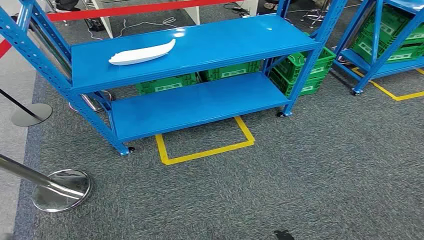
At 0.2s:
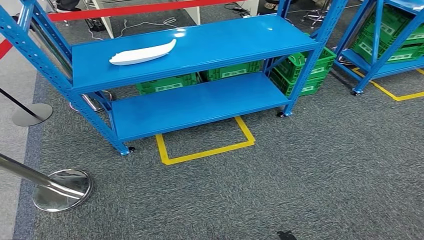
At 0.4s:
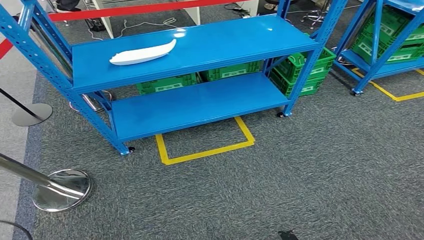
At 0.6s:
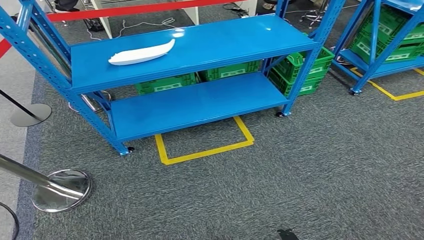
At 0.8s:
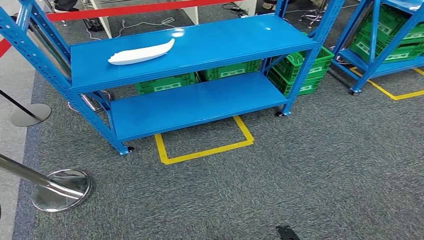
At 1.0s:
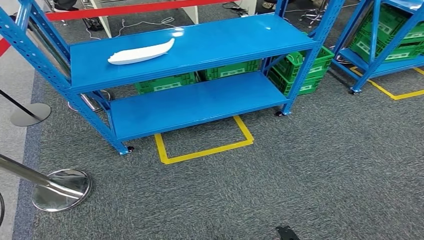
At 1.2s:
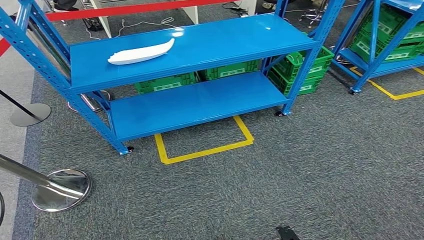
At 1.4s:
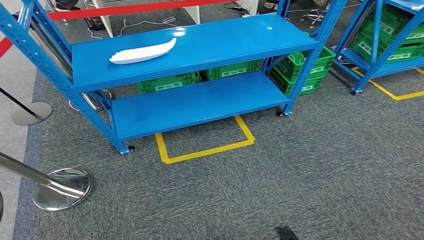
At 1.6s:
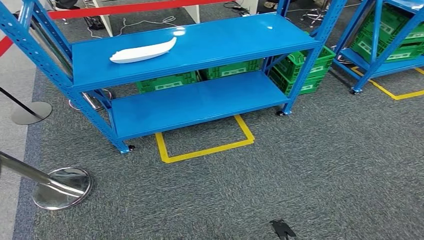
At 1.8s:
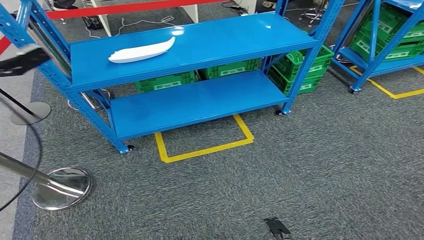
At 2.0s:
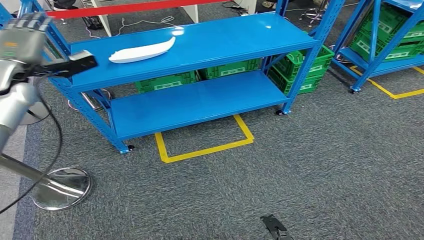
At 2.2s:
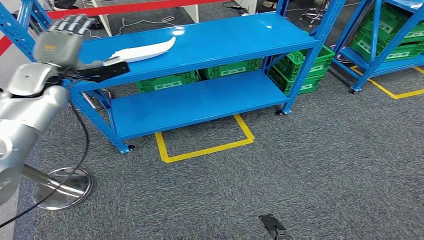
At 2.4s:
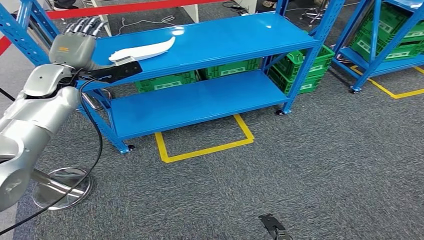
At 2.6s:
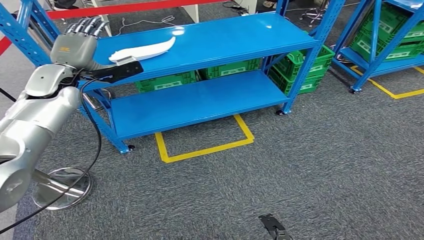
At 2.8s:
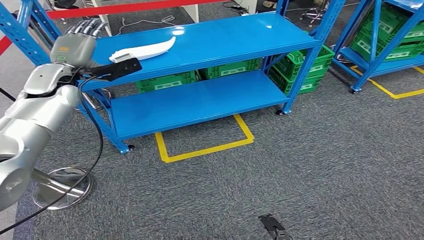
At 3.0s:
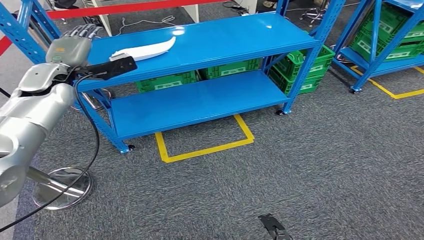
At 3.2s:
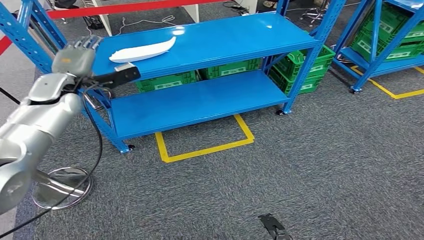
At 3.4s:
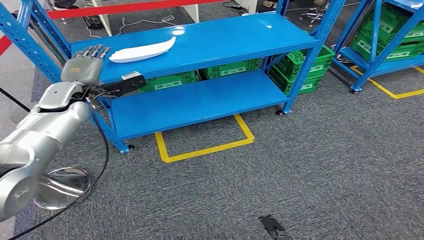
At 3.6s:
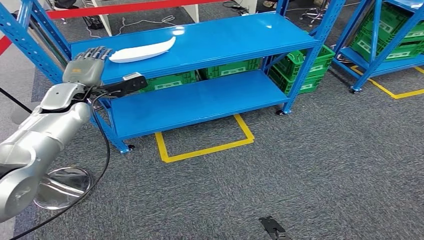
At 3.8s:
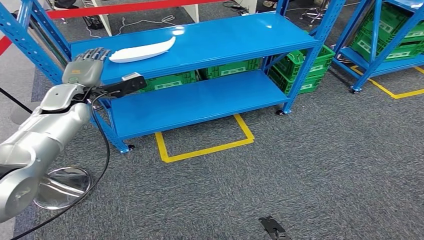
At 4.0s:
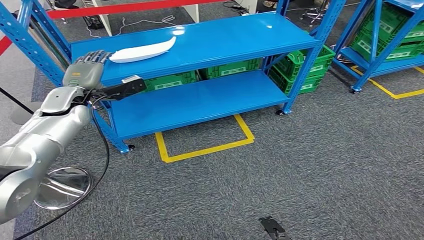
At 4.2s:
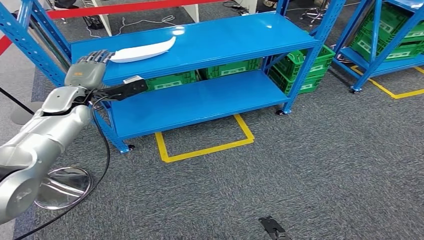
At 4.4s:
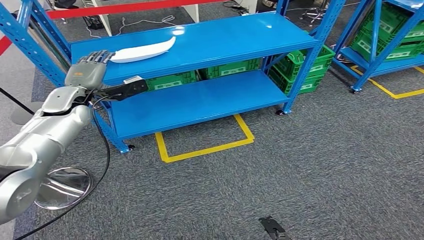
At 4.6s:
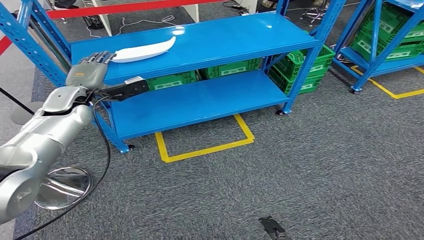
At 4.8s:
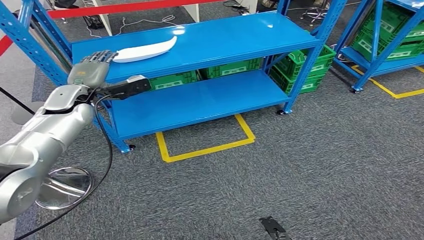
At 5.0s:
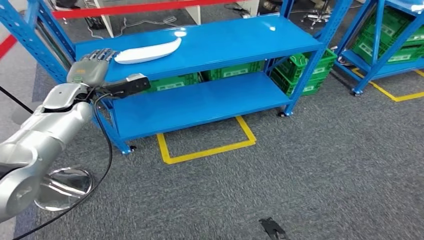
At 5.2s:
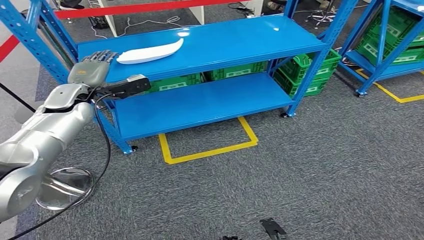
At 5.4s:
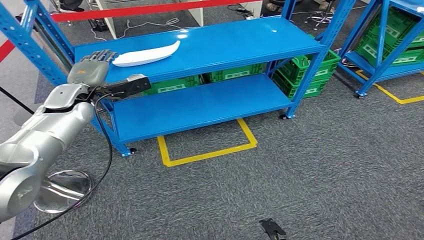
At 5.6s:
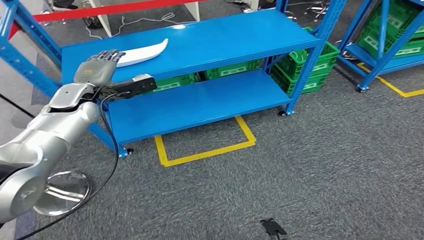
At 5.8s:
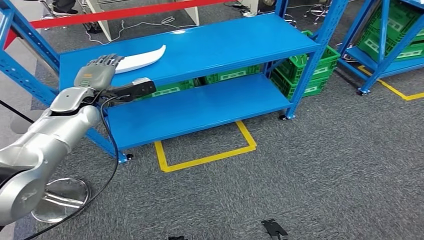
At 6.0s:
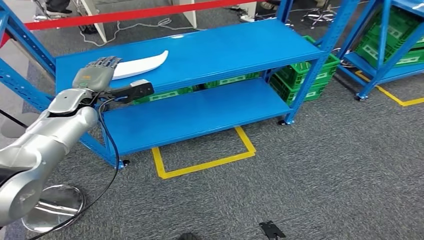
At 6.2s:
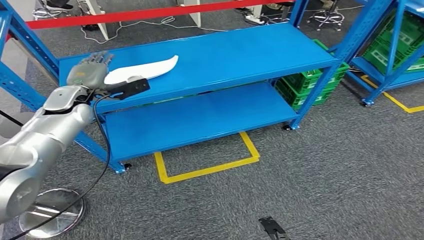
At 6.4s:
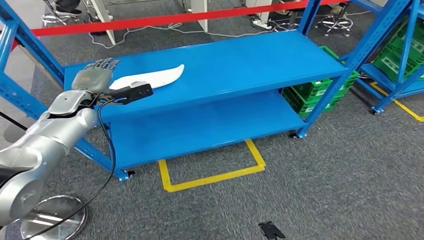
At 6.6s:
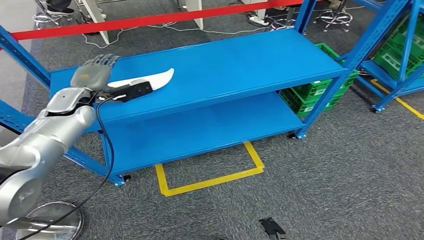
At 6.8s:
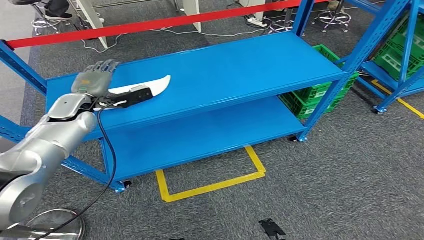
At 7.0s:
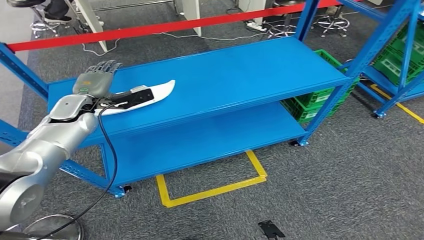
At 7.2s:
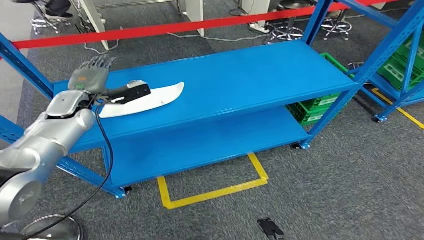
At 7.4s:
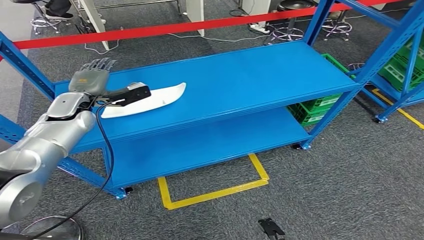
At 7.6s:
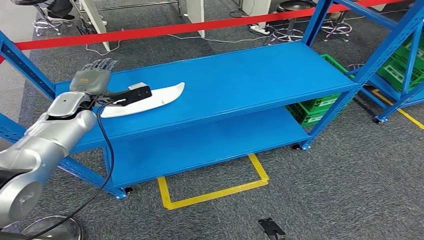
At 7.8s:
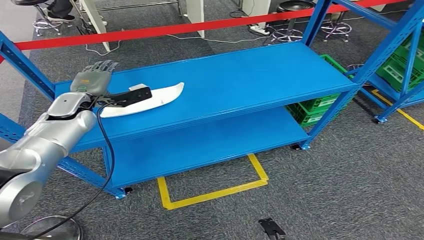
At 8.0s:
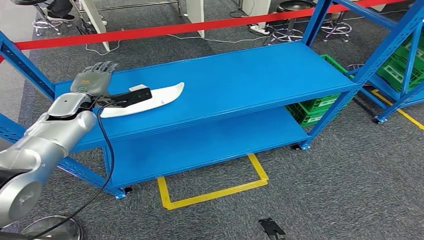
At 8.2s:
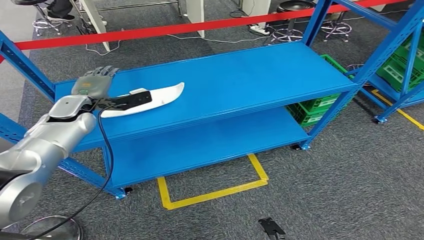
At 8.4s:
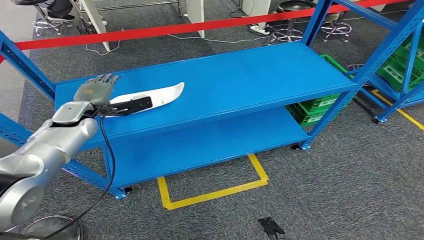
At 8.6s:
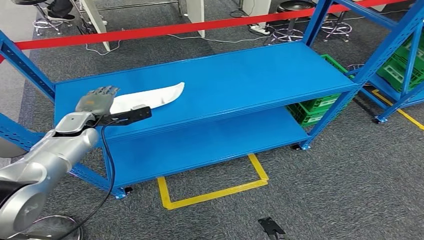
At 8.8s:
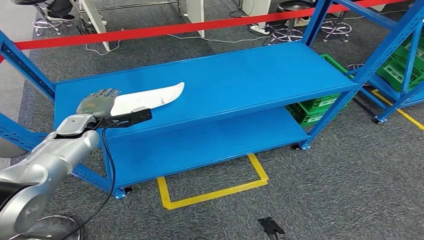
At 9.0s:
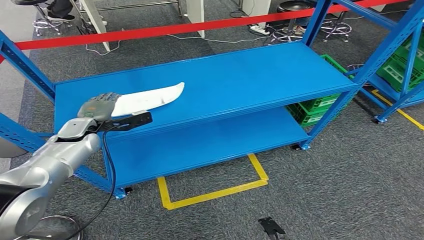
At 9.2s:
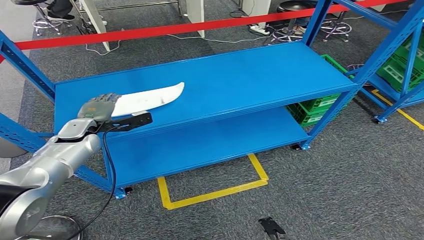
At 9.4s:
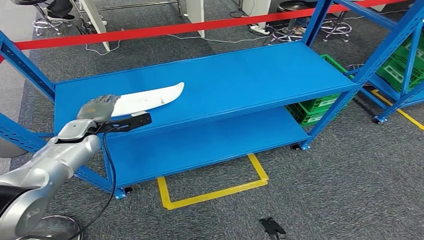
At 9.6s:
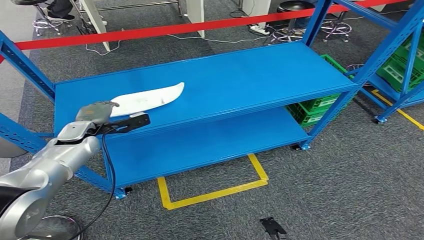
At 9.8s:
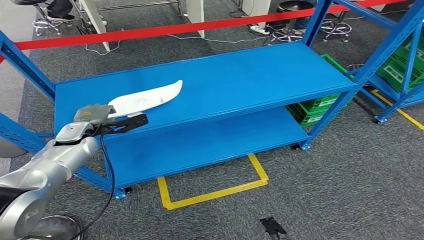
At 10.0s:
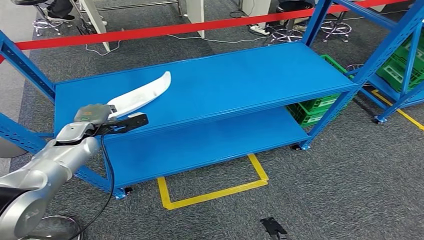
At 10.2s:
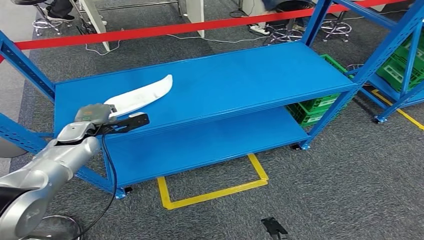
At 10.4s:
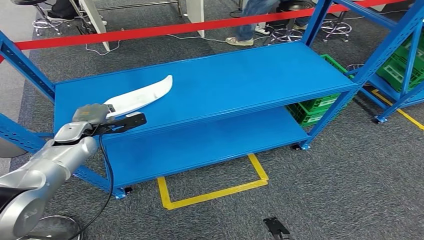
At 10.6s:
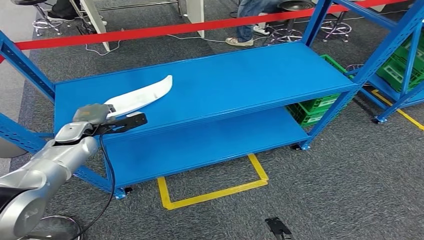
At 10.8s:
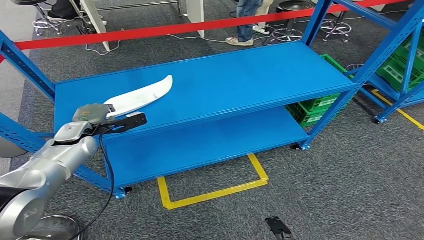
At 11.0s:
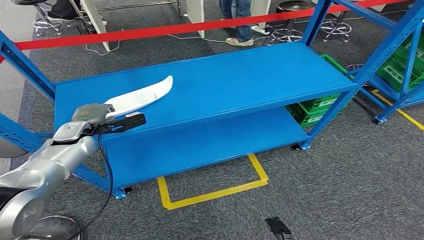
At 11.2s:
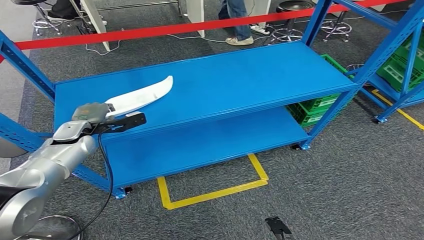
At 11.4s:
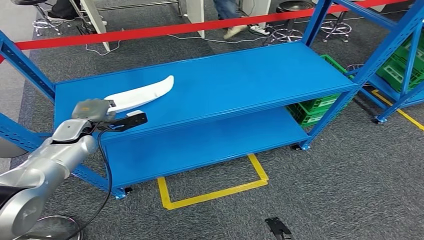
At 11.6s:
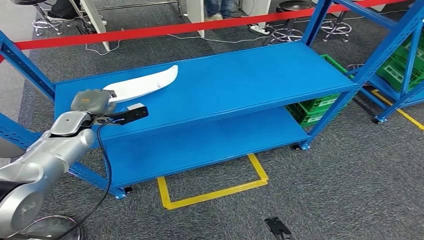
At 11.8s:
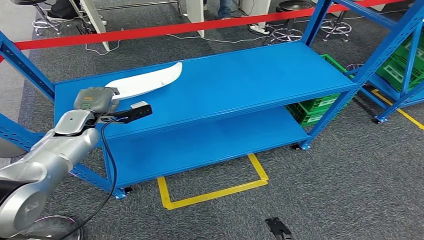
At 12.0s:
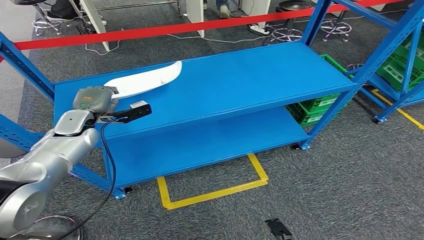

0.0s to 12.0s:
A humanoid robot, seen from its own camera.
1.6s to 3.0s: The left hand heads to the right, covering some 25 cm.
3.0s to 4.4s: The left hand goes roughly 5 cm downward.
7.6s to 9.0s: The left hand moves downward, some 10 cm.
9.0s to 12.0s: The hands make only small movements.

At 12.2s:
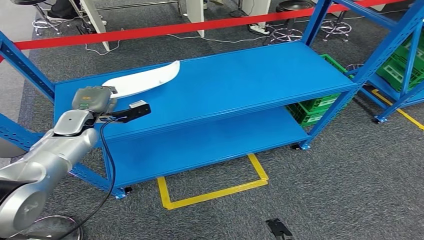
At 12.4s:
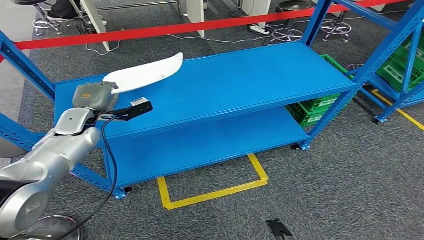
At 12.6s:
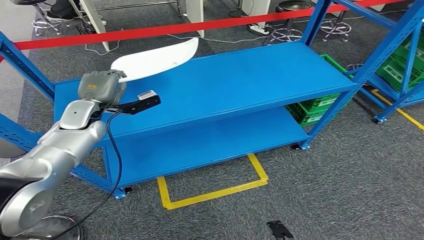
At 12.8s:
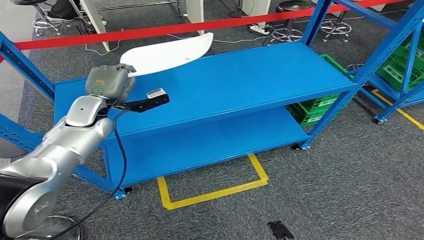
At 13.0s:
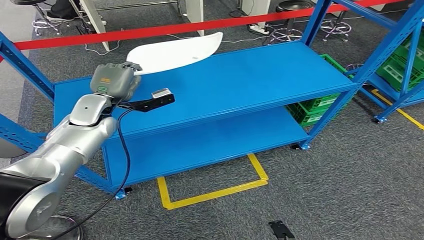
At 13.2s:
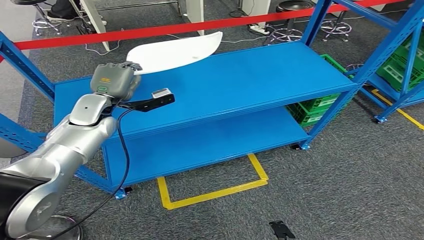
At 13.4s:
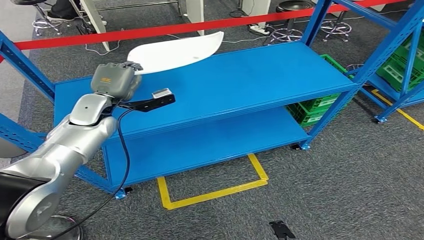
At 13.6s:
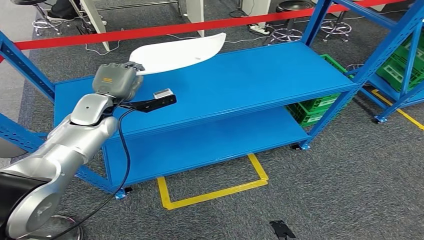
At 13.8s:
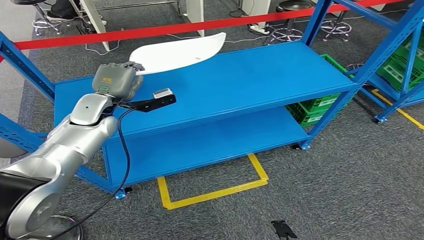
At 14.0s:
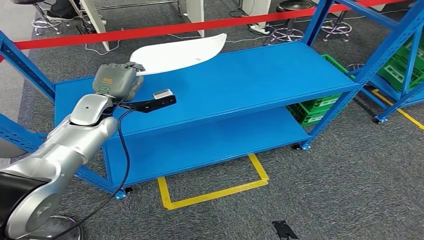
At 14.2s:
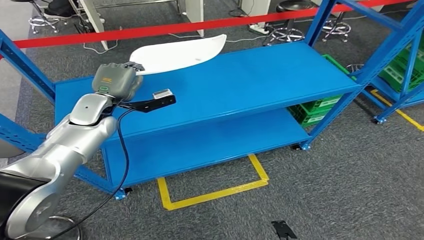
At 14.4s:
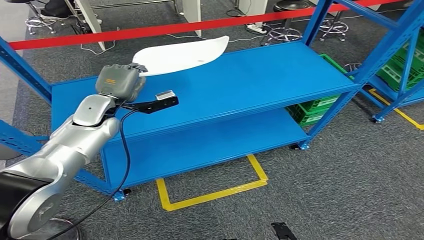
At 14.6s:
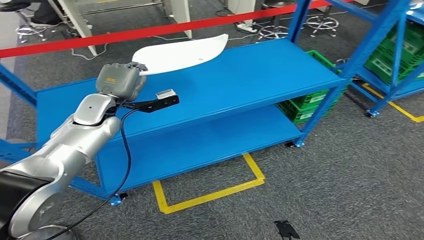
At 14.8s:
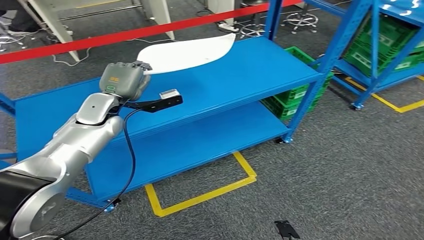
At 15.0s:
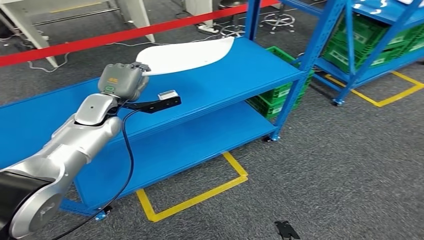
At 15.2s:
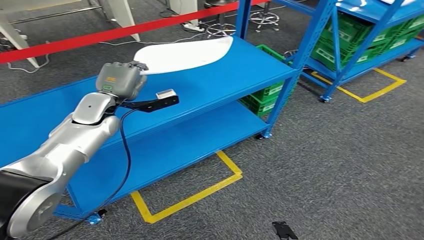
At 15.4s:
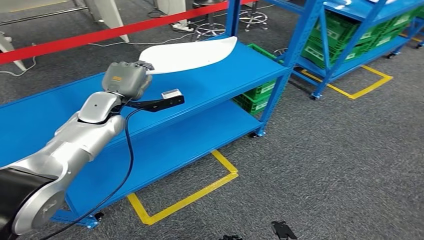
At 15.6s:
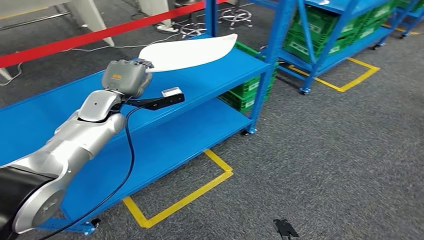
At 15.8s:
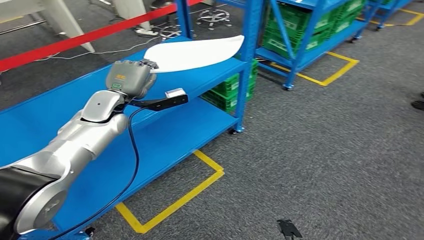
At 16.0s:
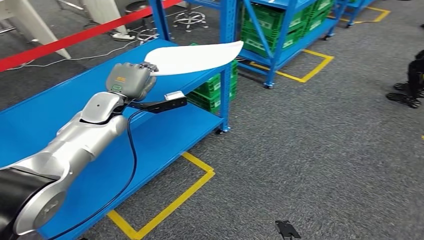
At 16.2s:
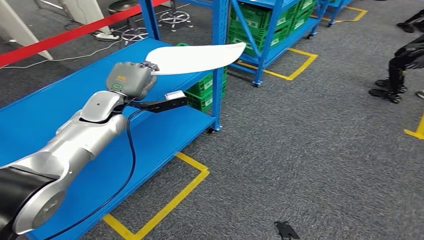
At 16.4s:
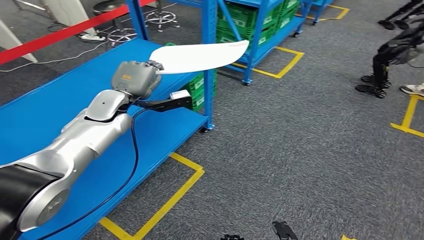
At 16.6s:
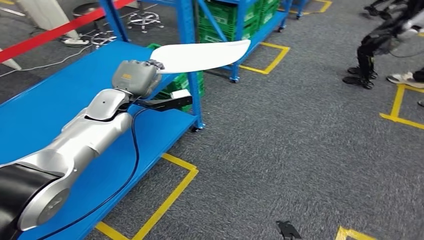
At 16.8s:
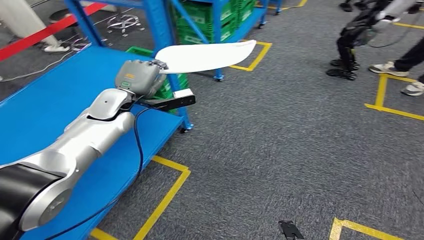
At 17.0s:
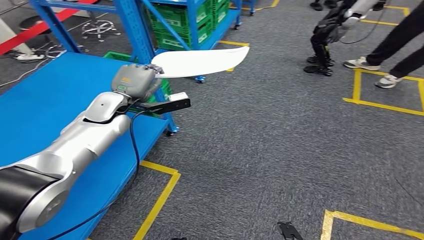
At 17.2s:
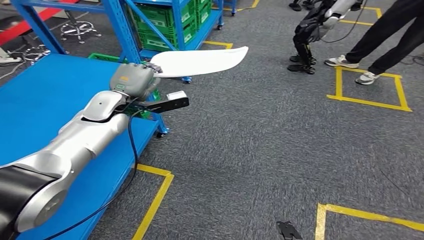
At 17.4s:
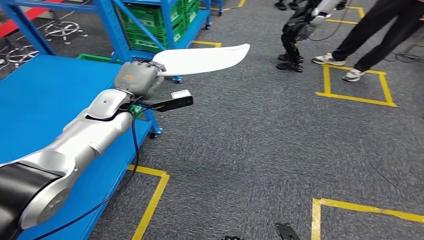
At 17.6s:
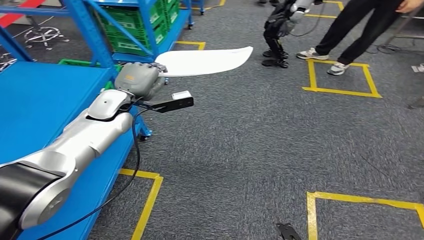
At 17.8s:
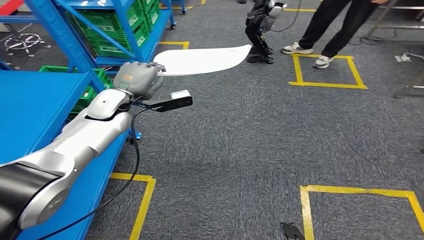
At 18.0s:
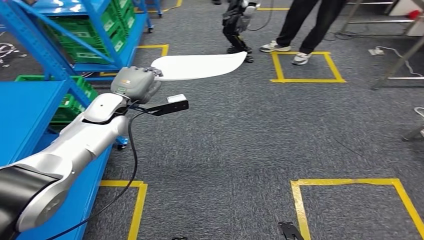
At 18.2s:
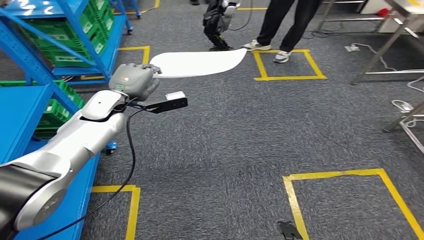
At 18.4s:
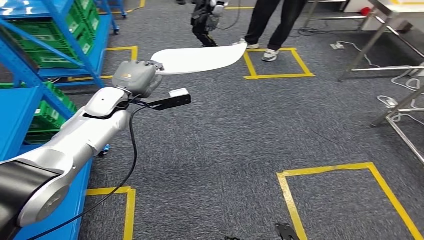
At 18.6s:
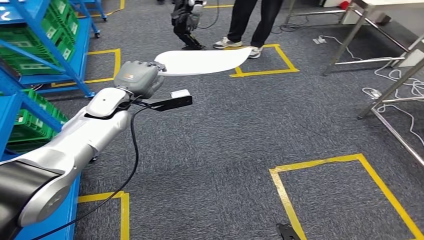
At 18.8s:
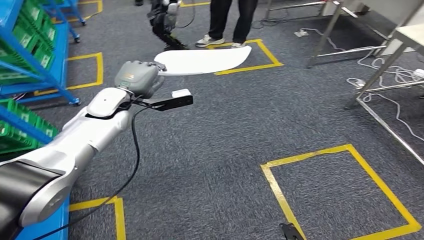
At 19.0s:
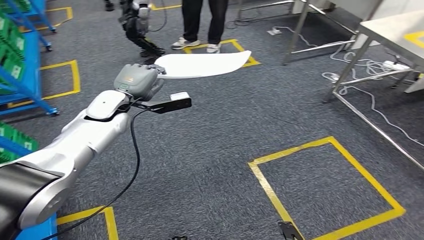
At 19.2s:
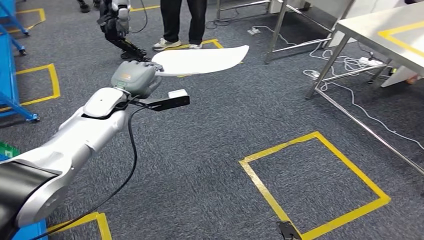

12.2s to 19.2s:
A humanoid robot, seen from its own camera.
Step, 12.2s to 14.6s: Pick up the small parts from the shelf.
12.2s to 13.6s: The left hand moves to the right and upward, about 10 cm.
